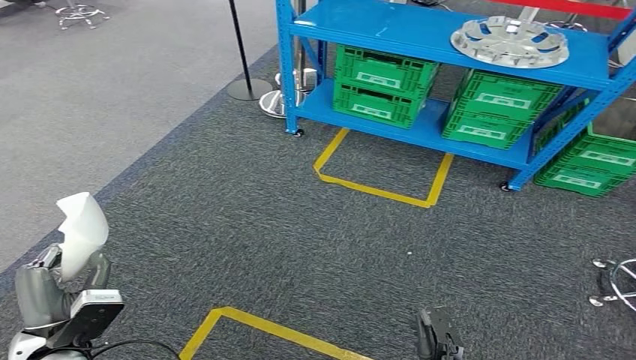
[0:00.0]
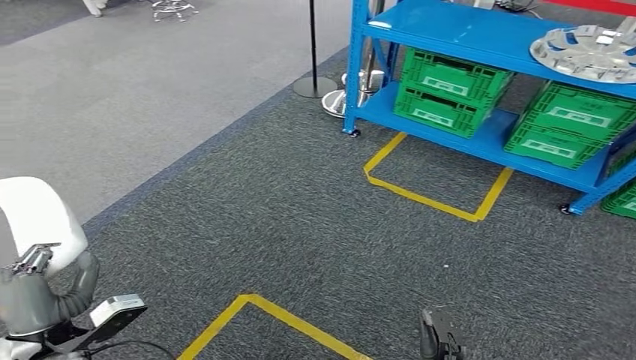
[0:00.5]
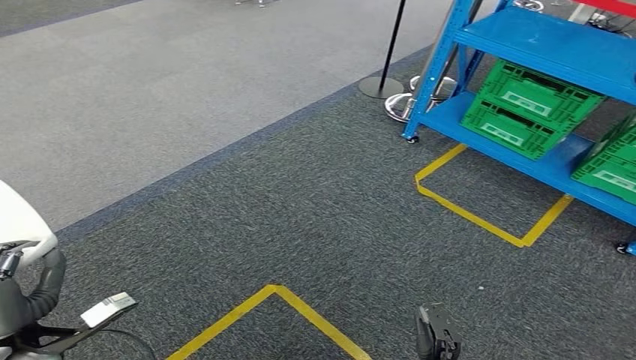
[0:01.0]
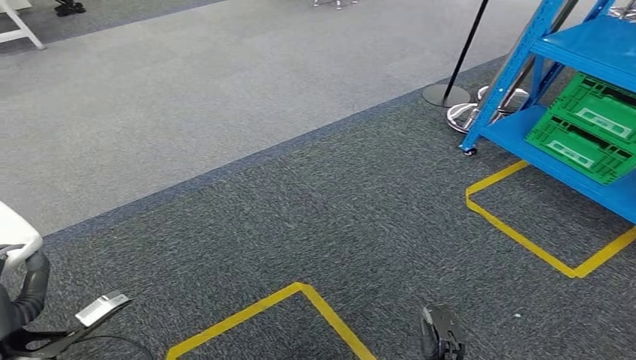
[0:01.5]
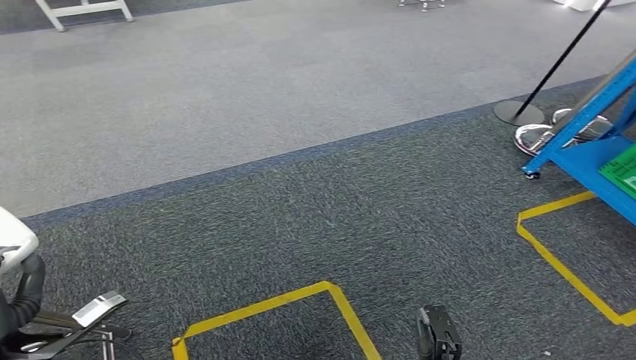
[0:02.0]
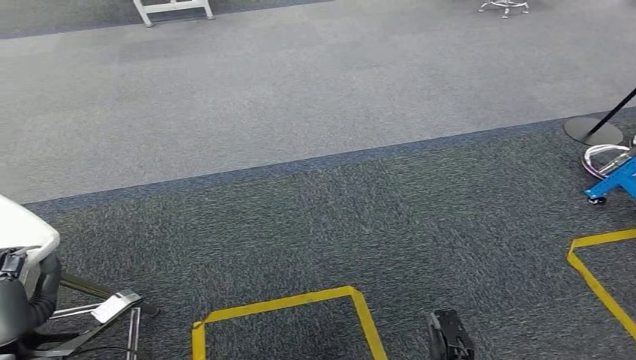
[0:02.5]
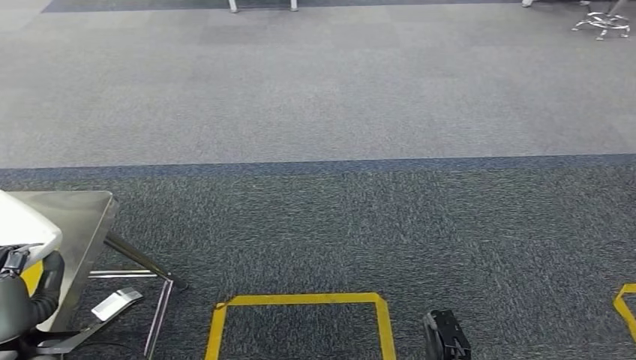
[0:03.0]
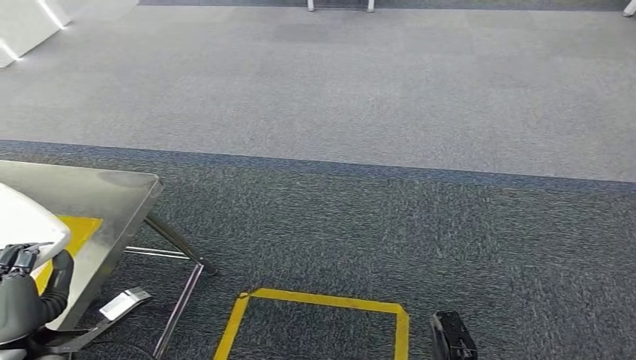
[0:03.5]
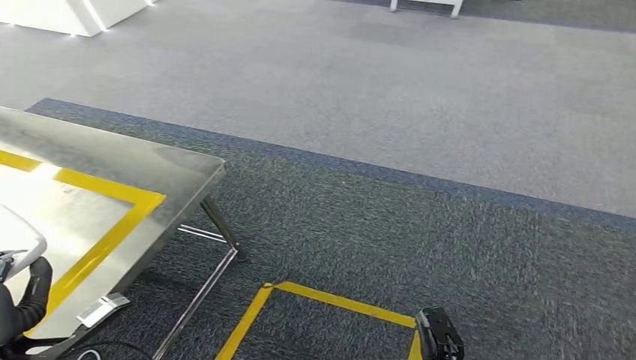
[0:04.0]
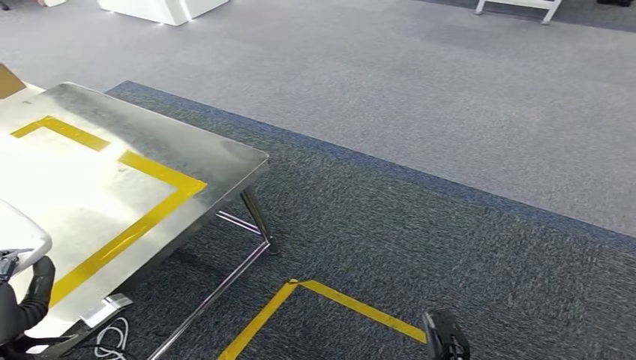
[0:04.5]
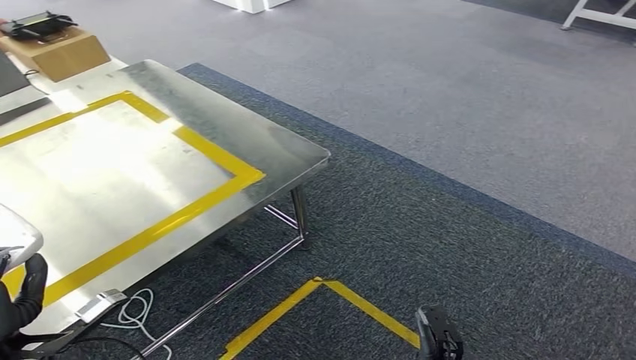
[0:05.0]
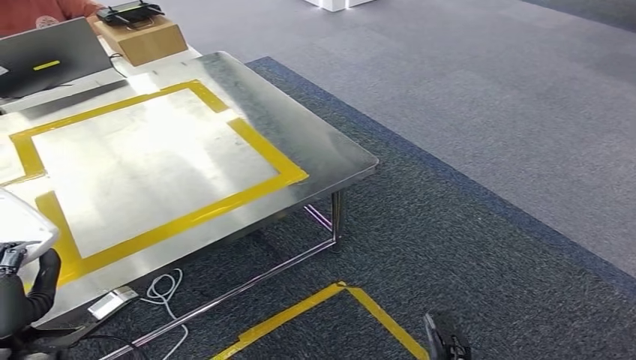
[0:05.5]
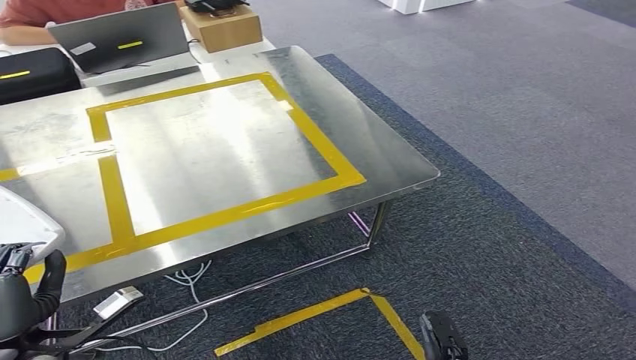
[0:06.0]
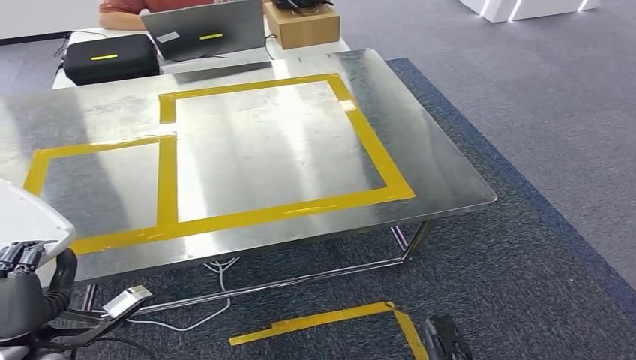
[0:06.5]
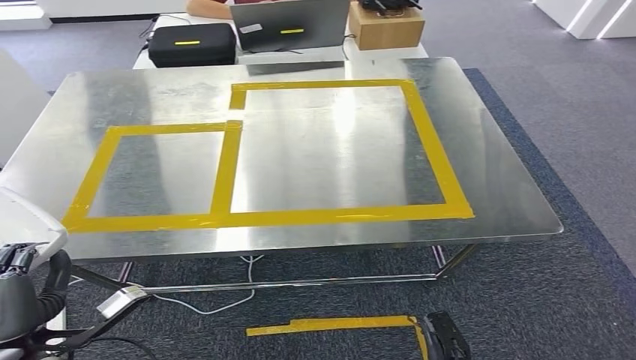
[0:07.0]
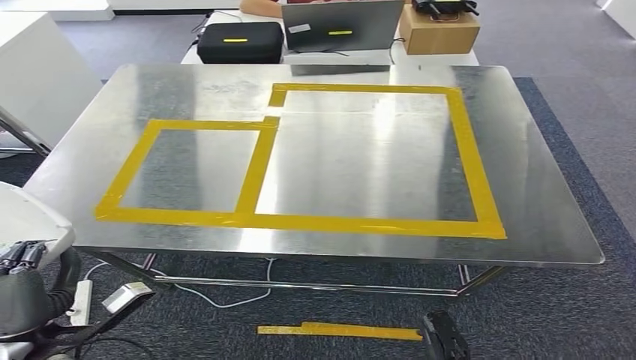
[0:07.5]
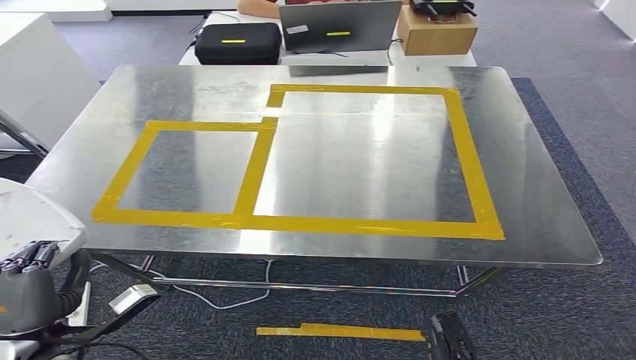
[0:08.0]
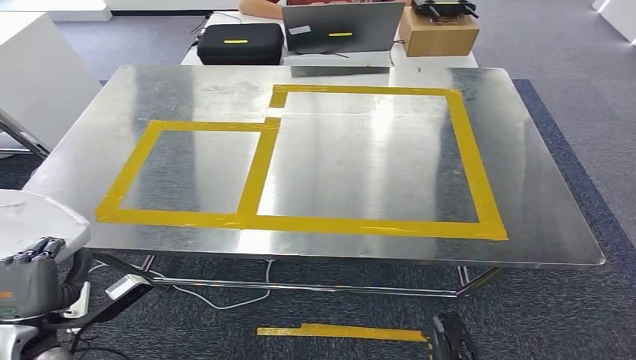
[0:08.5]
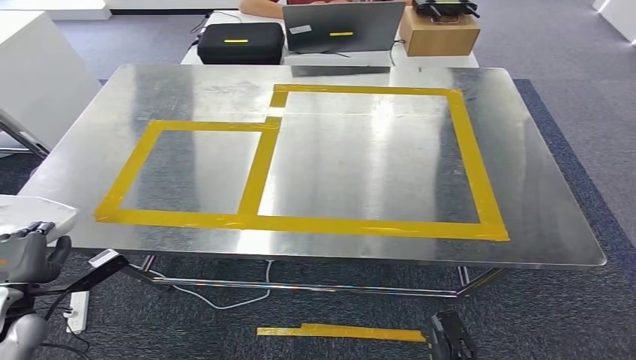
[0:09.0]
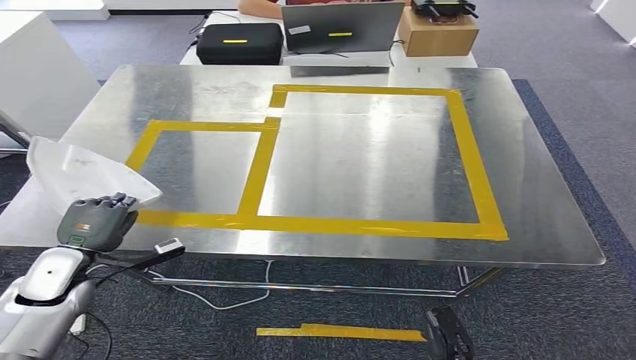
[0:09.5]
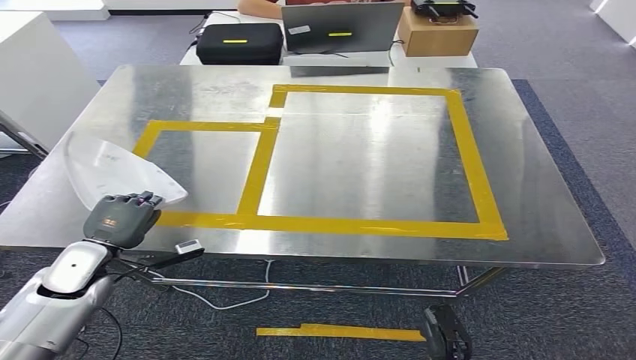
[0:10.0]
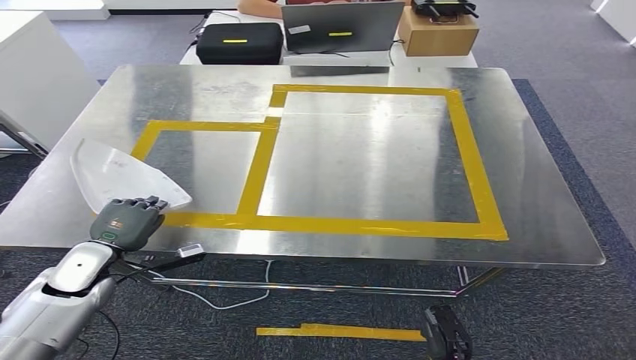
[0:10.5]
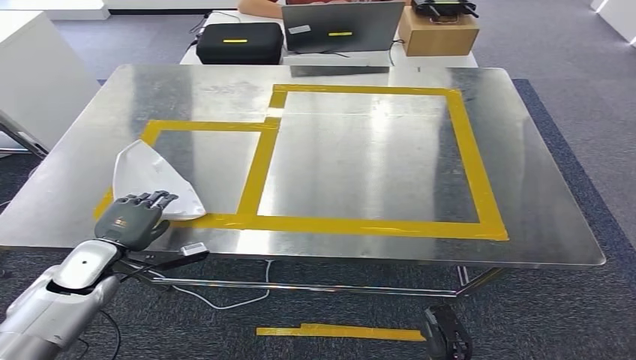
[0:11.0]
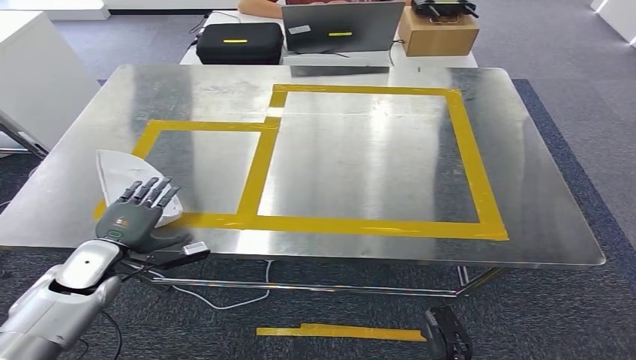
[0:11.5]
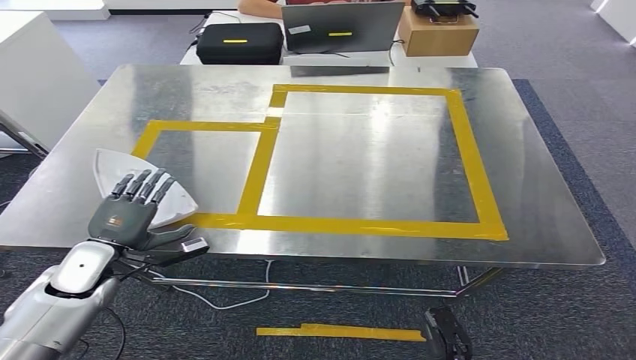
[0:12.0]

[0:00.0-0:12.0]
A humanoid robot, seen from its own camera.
Step, 0:00.0 to 0:06.5: Move the small parts to the workbench.
0:08.0 to 0:10.0: The left hand shifts about 15 cm forward.
0:10.0 to 0:12.0: The hands stay close to where they were, moving slightly.

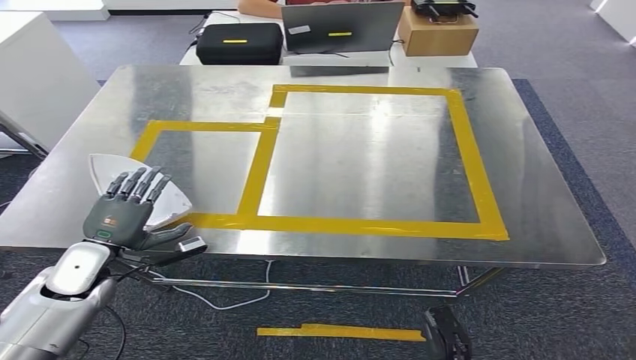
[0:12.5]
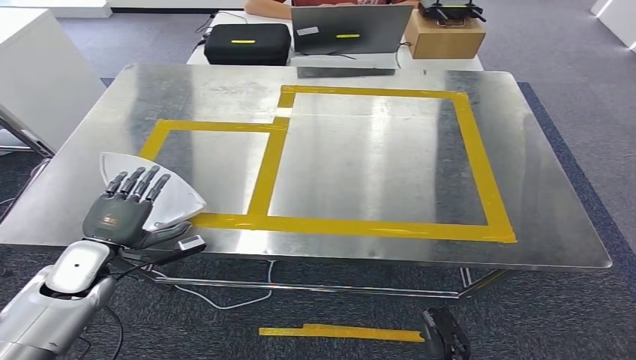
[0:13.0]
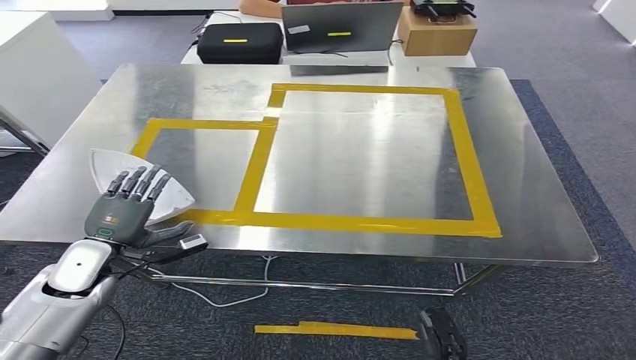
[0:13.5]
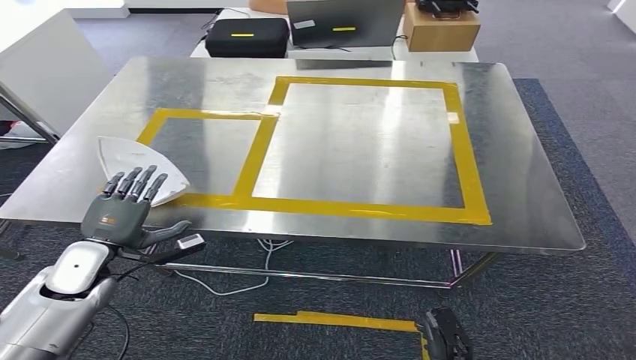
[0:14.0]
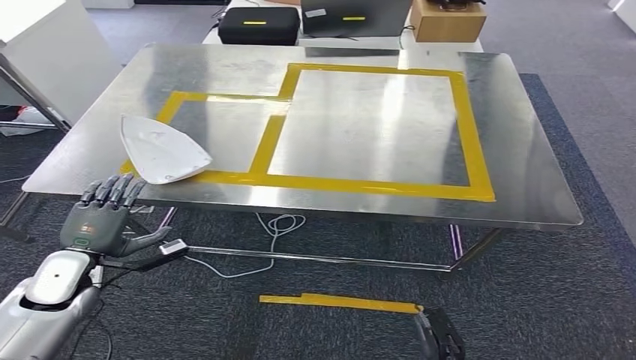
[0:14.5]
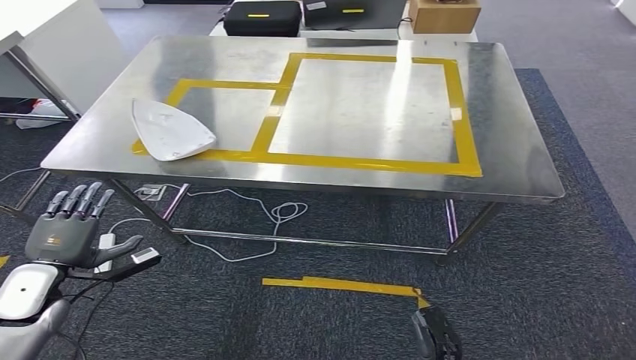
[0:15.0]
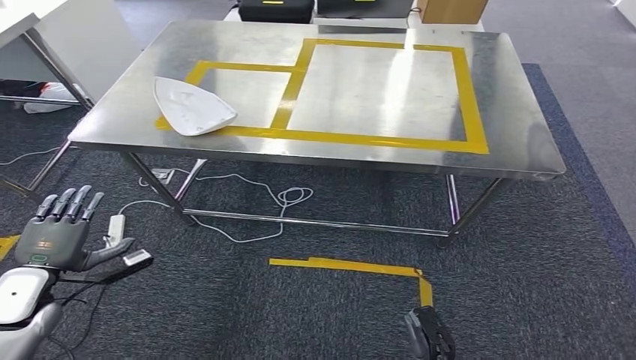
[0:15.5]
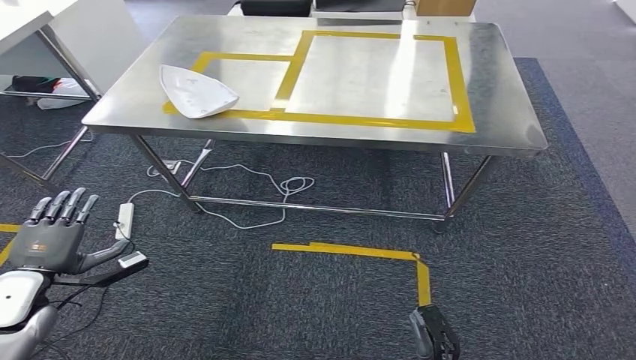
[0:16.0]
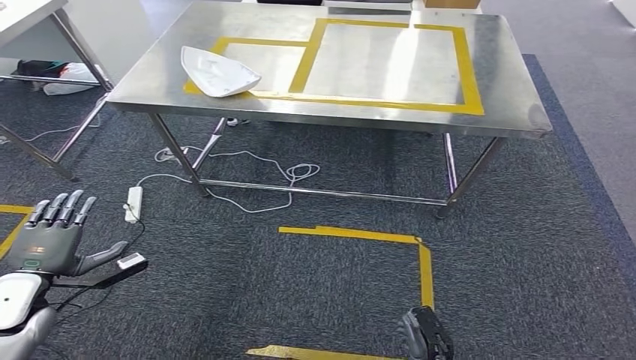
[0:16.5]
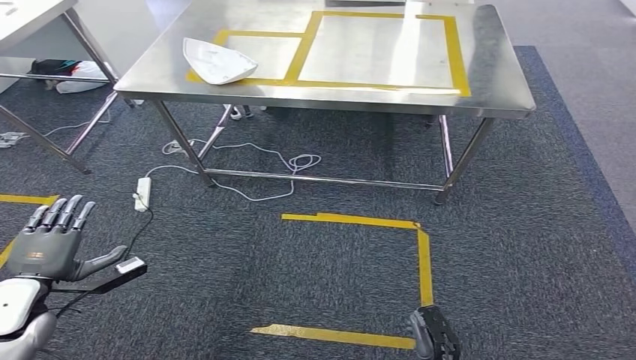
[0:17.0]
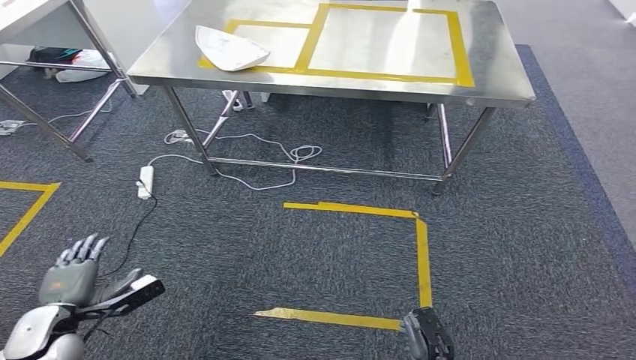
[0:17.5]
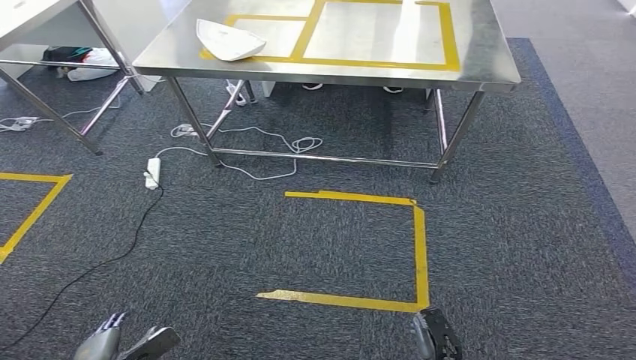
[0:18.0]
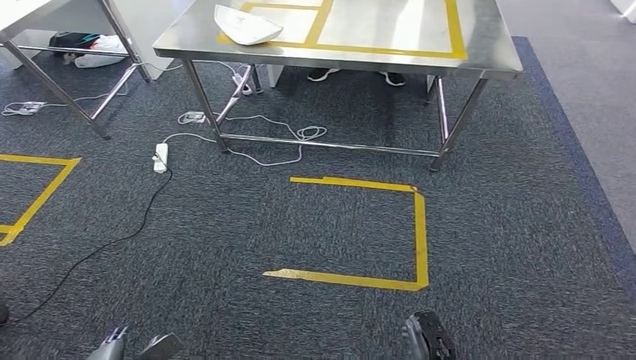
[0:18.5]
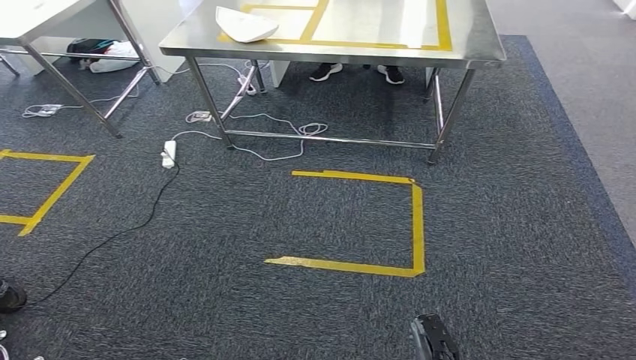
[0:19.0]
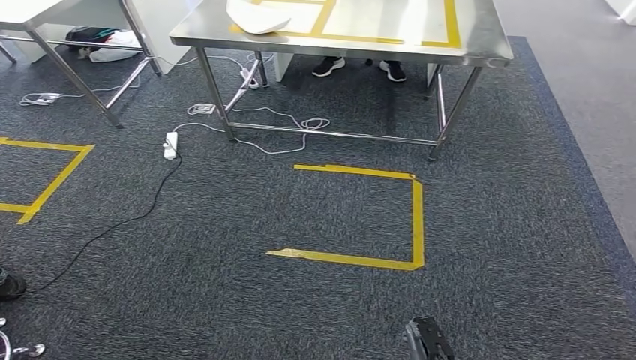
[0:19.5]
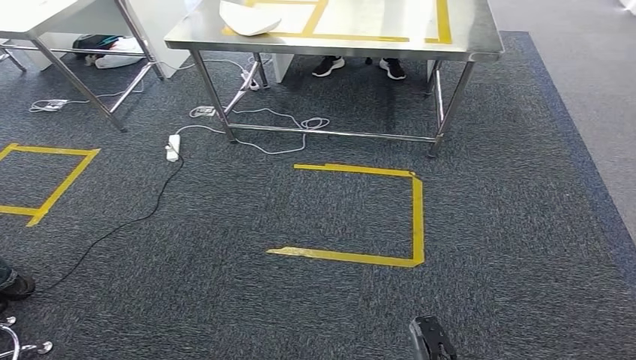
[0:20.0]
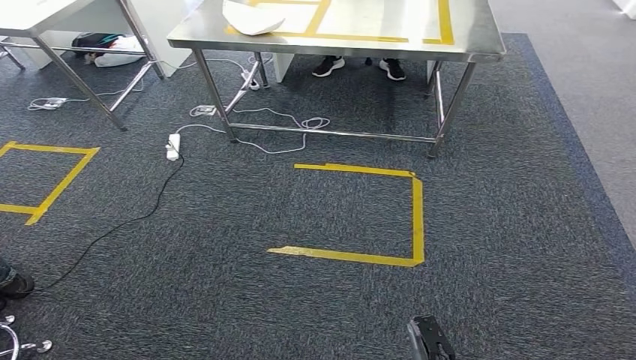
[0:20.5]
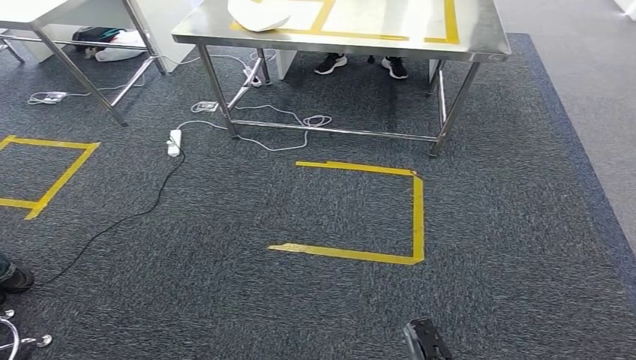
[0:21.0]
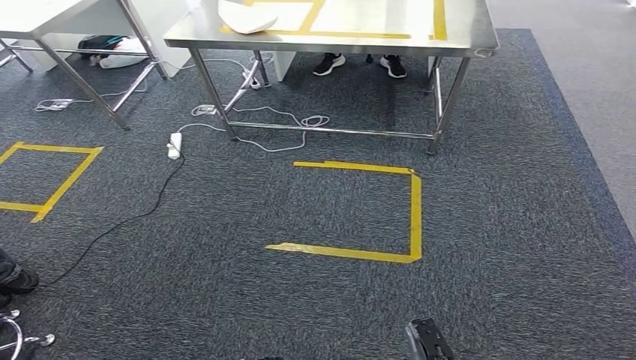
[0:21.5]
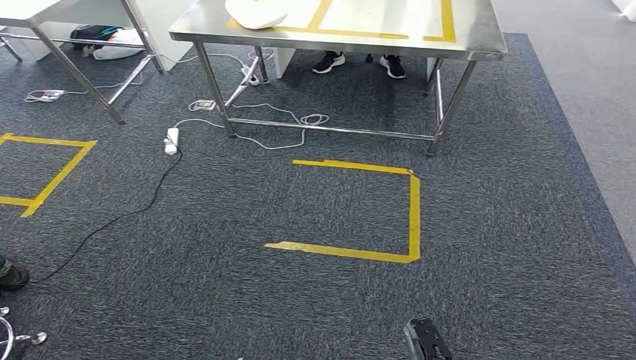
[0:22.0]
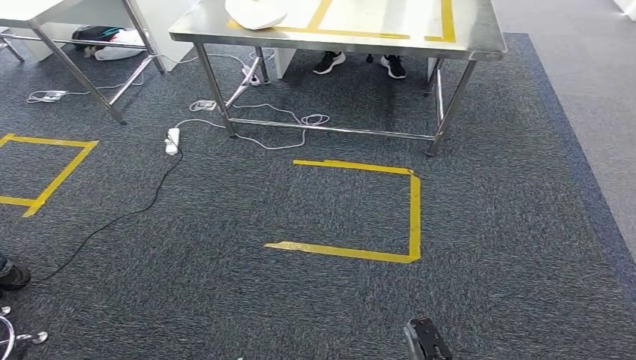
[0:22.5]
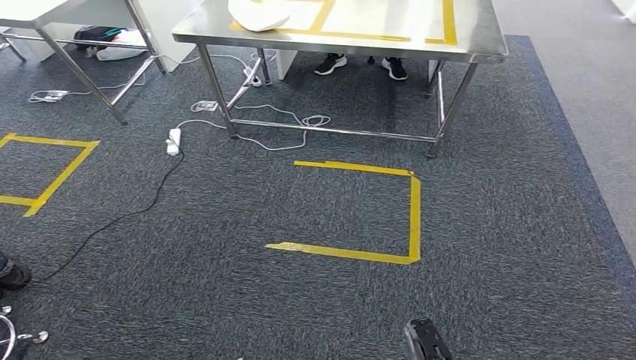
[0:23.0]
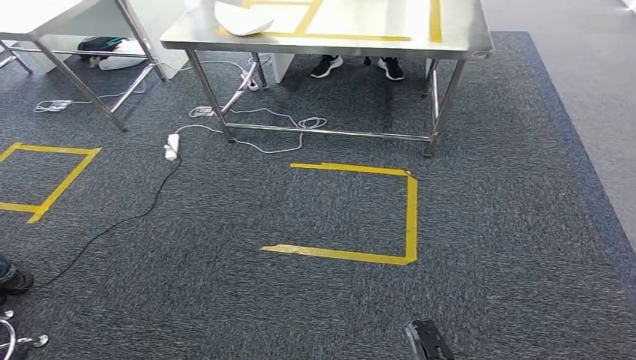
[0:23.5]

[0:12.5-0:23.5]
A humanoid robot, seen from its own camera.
Step, 0:12.5 to 0:18.5: Insert the small parts into the corresponding slots on the workbench.
0:20.0 to 0:23.5: Neither hand changes place.
